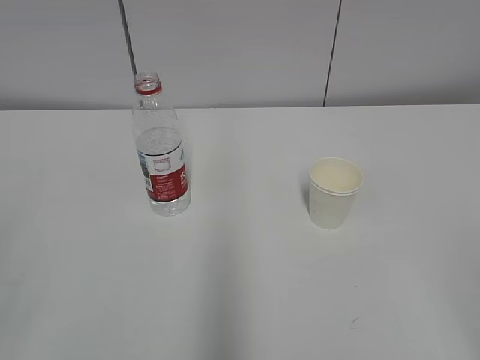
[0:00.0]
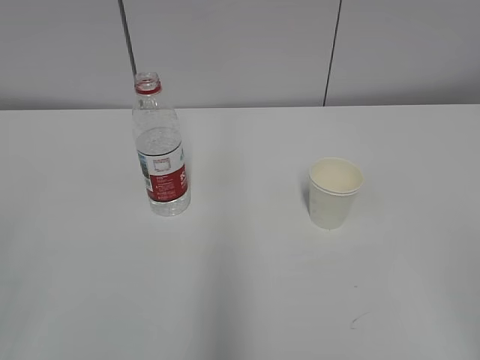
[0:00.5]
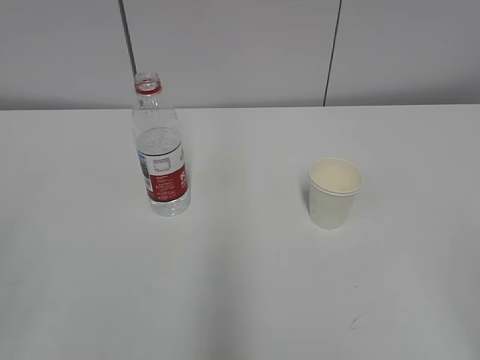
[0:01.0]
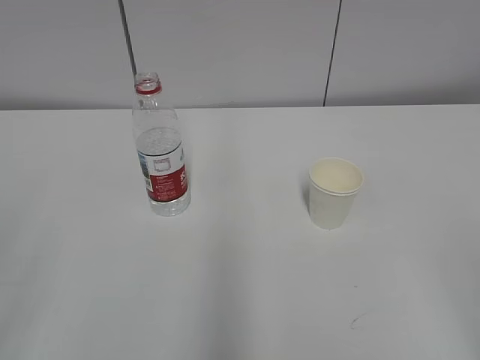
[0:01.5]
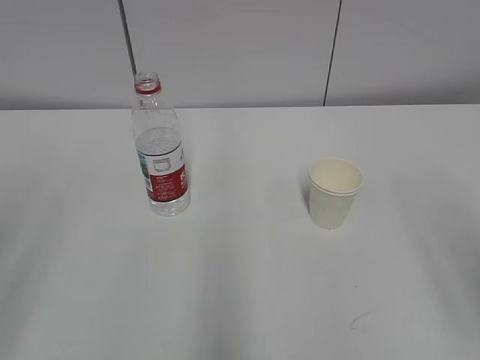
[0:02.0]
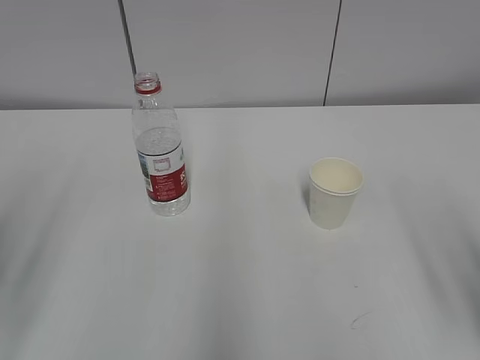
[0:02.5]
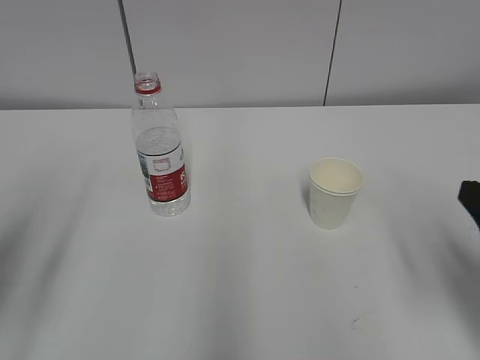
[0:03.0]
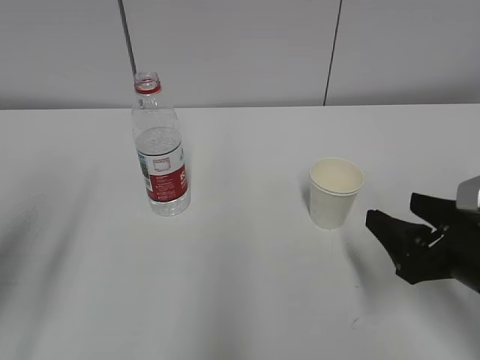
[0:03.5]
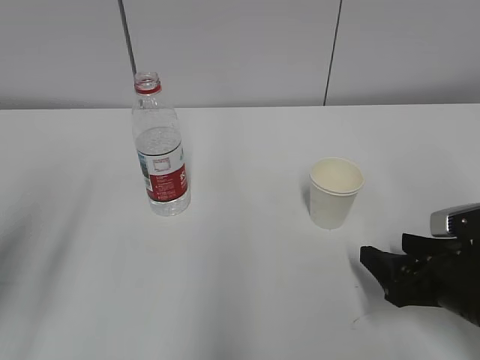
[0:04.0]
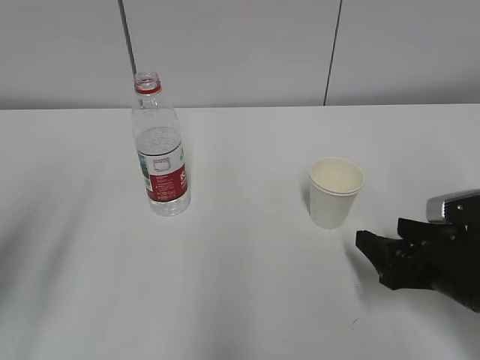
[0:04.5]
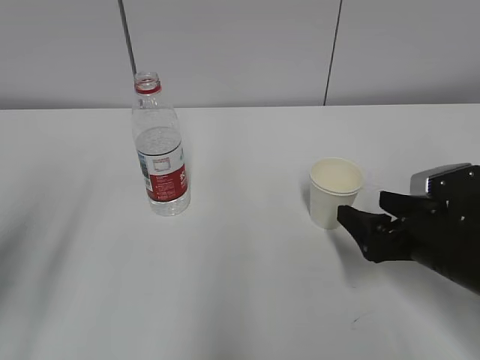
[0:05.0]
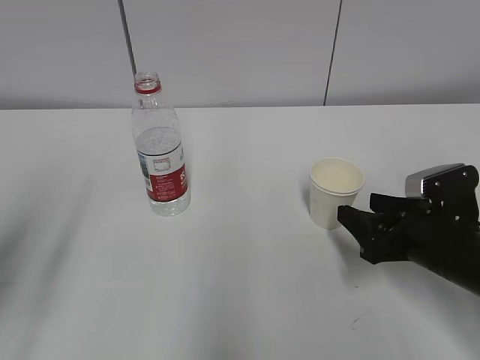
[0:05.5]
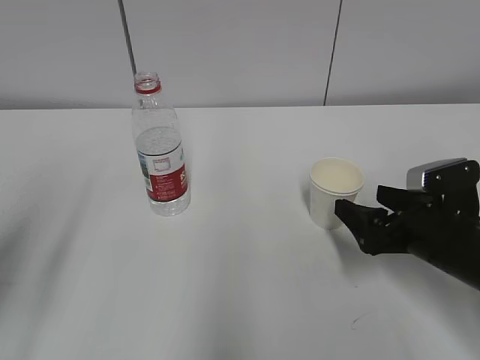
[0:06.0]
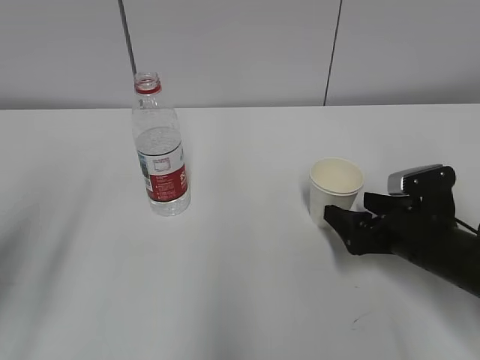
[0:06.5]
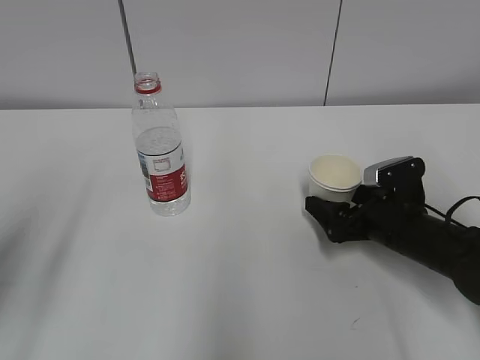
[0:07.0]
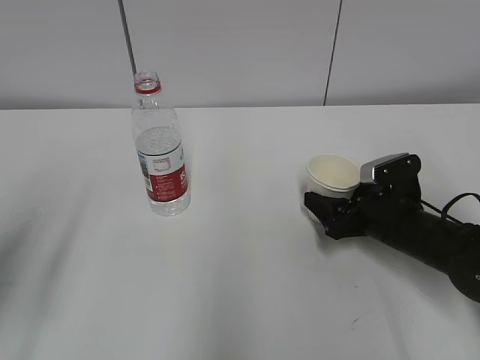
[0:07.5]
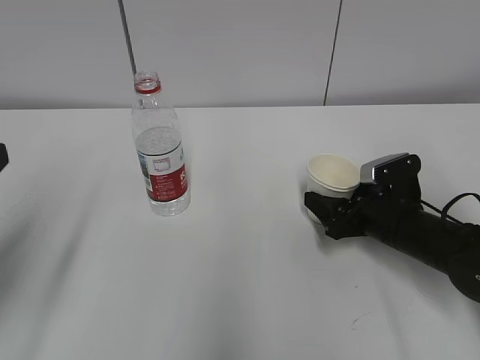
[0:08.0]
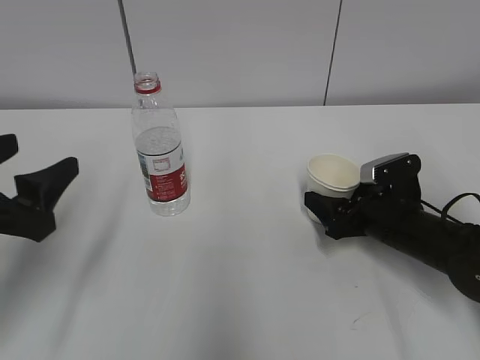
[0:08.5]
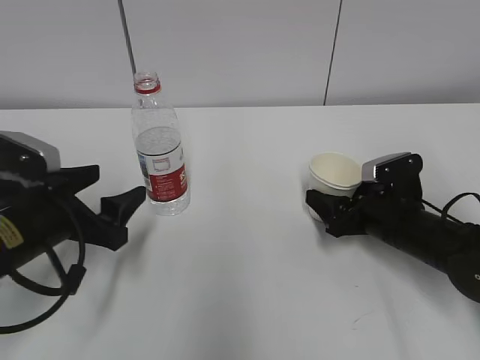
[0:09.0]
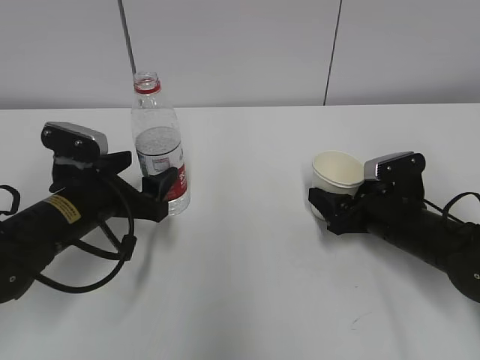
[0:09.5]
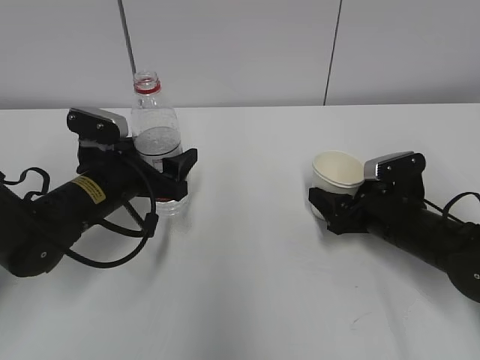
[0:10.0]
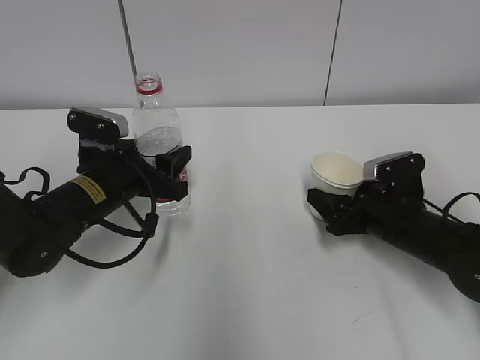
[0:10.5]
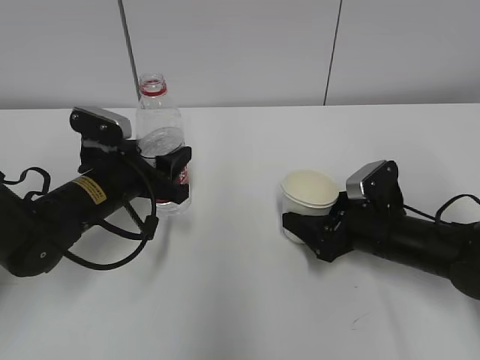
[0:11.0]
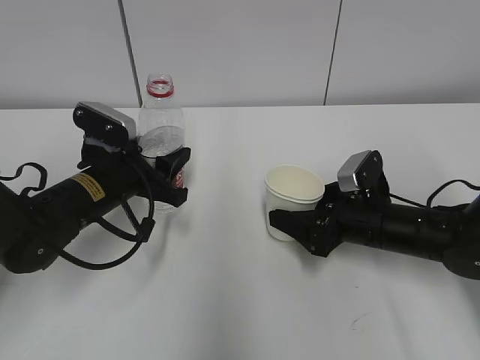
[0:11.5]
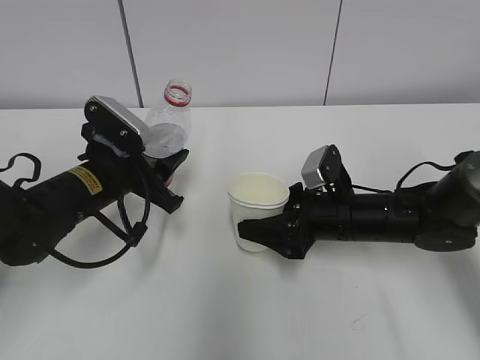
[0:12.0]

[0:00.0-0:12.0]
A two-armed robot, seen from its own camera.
Step, 0:00.0 to 0:09.0: Grab the paper cup with the right hand.
0:02.0 to 0:04.0: The right gripper goes about 25 cm downward and forward.
0:04.0 to 0:06.0: The right gripper goes about 5 cm forward, and opens its fingers.
0:06.0 to 0:08.0: The right gripper shifts roughly 5 cm forward, and closes up.
0:08.0 to 0:10.0: The left gripper goes roughly 25 cm forward, downward and to the right.
0:10.0 to 0:12.0: The right gripper travels to the left by roughly 5 cm, while the left gripper closes.

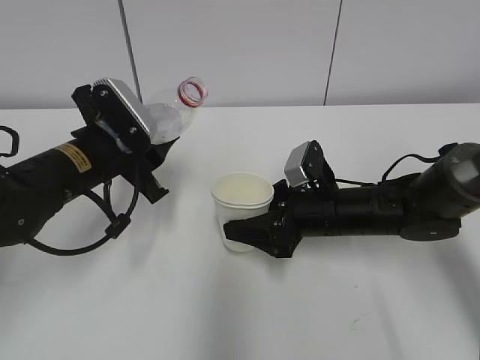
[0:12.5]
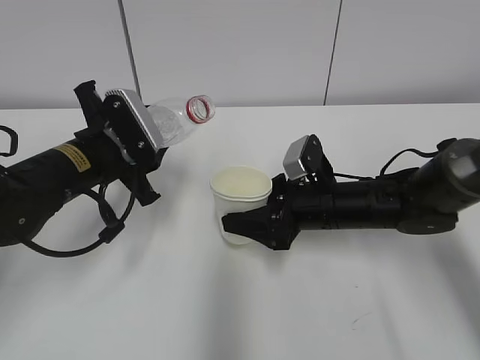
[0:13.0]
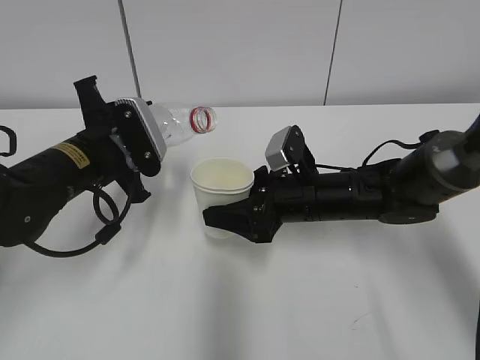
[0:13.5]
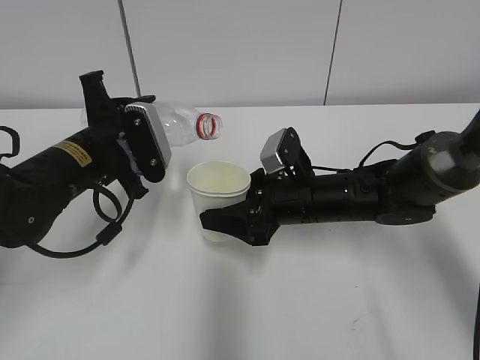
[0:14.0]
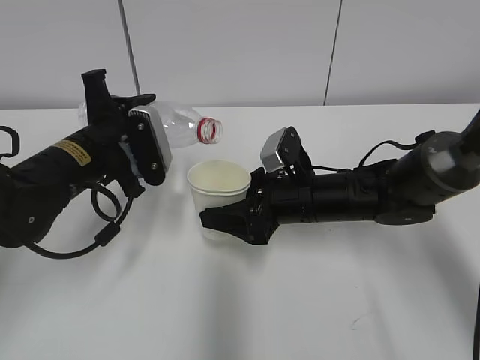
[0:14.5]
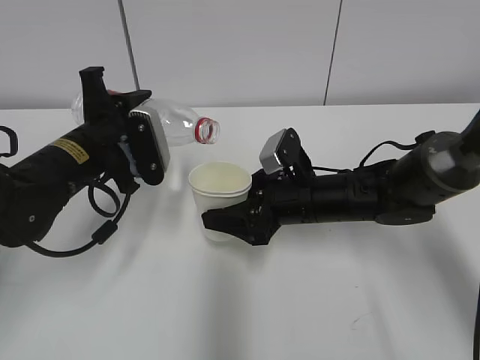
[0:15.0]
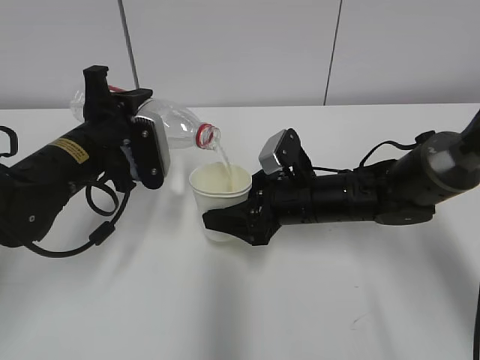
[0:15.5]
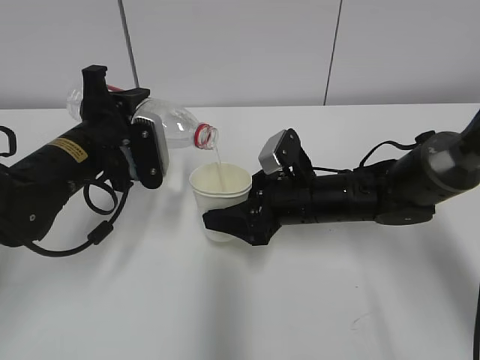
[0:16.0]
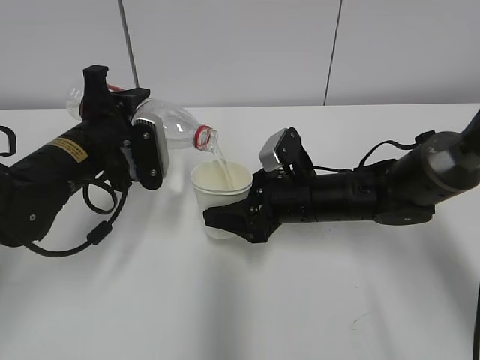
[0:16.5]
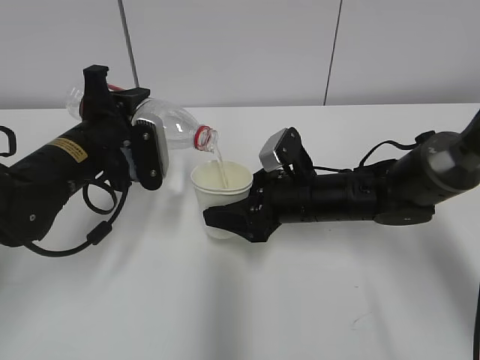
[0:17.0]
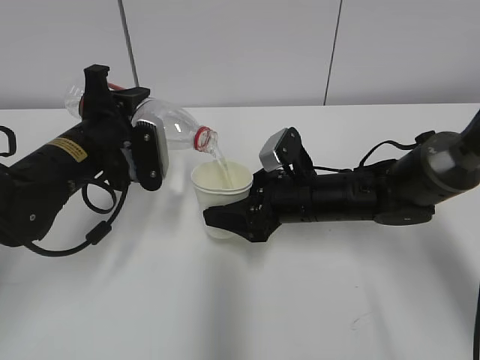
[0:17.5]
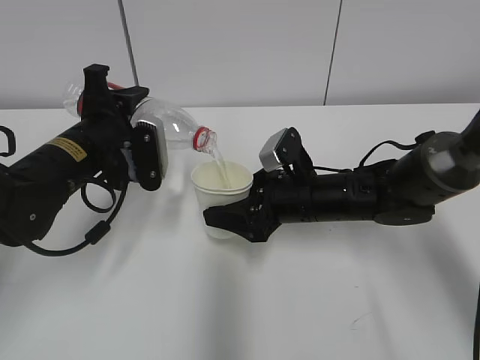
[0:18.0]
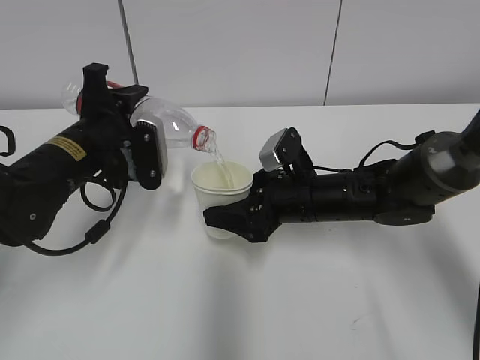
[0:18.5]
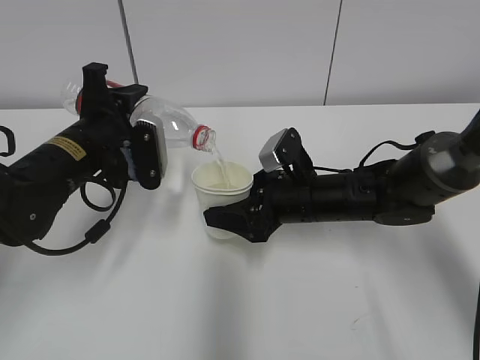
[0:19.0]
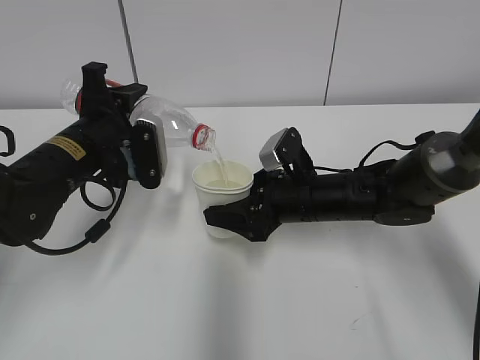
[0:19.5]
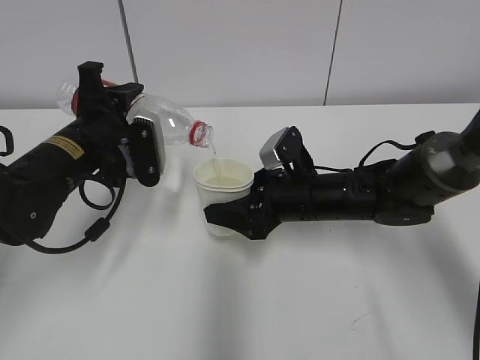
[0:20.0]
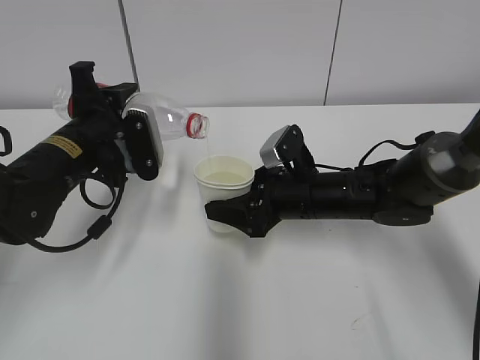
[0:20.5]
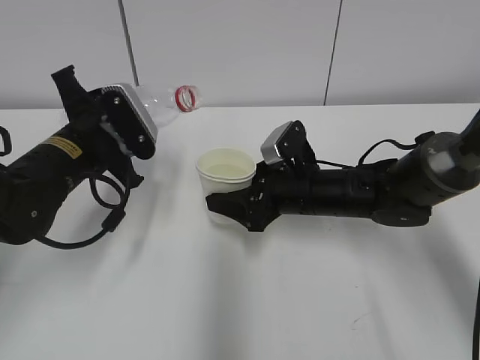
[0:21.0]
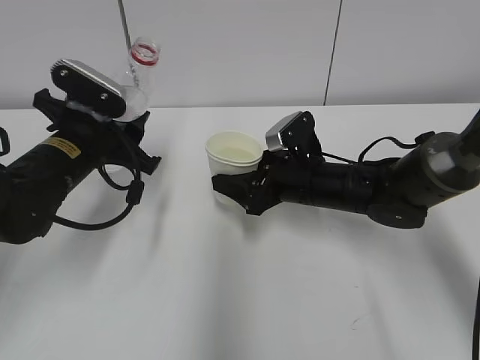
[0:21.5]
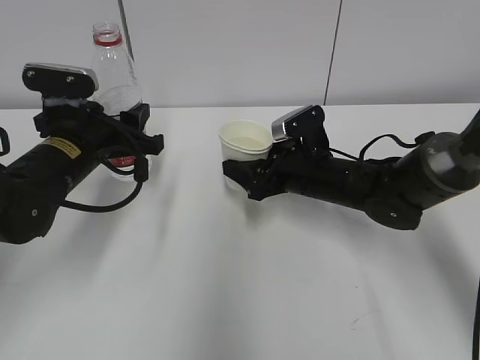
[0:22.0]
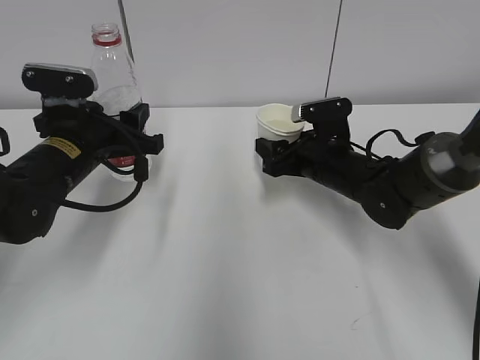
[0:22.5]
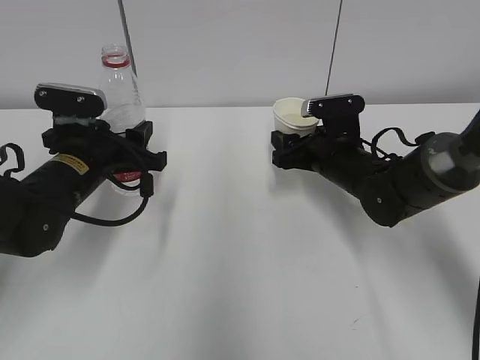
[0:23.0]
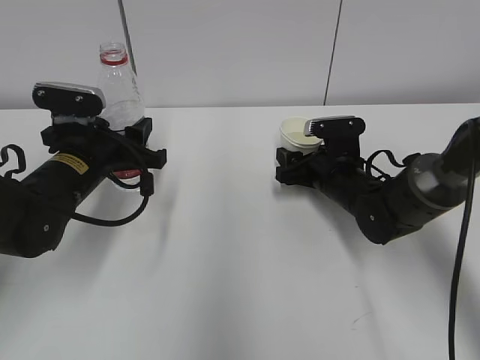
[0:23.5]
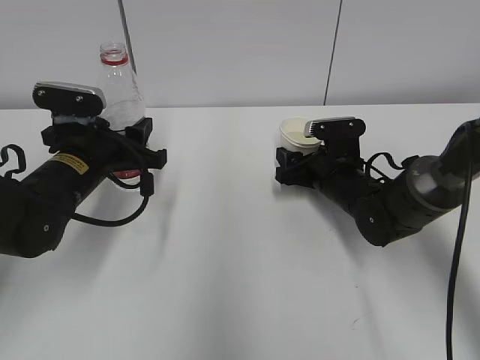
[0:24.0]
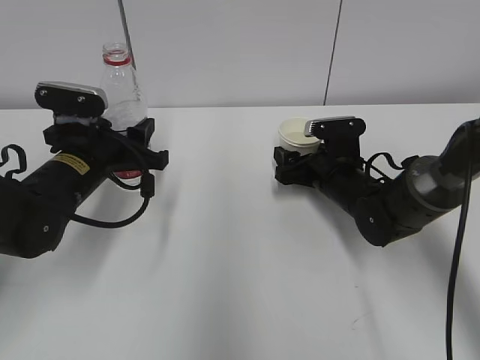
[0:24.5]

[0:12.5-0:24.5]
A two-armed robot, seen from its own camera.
Step, 0:13.0 to 0:17.0: Fill water with the right hand.
Step, 0:13.0 to 0:17.0: Pour water with the left hand.
Step, 0:18.5 to 0:20.5: Place the paper cup with the right hand.
0:14.5 to 0:16.5: The grippers make only small movements.
0:16.5 to 0:18.5: The two grippers keep their place.
0:18.5 to 0:20.5: There are only small adjustments of the grippers.
0:20.5 to 0:22.5: The right gripper changes place by about 5 cm.
0:22.5 to 0:24.5: The right gripper opens its fingers.

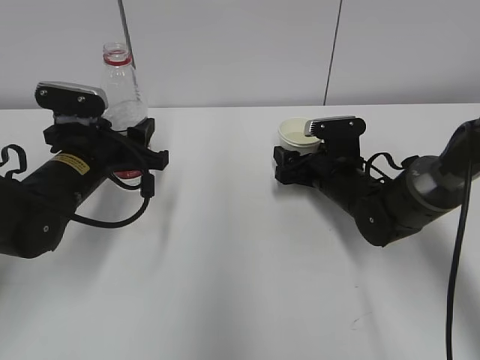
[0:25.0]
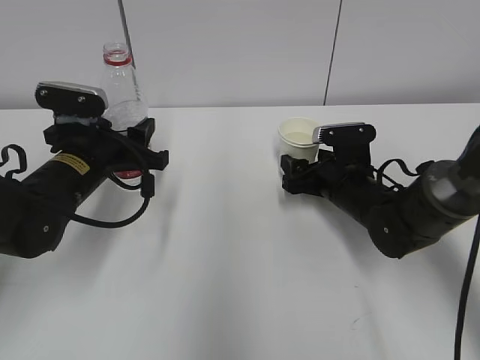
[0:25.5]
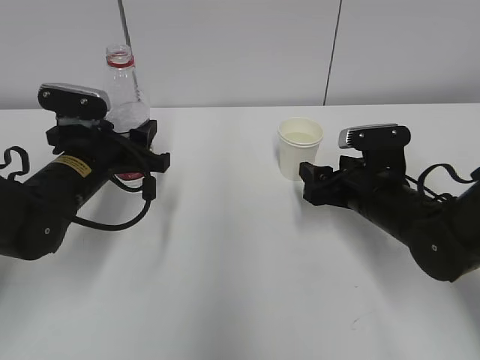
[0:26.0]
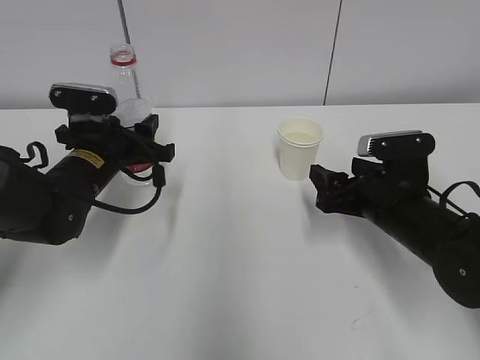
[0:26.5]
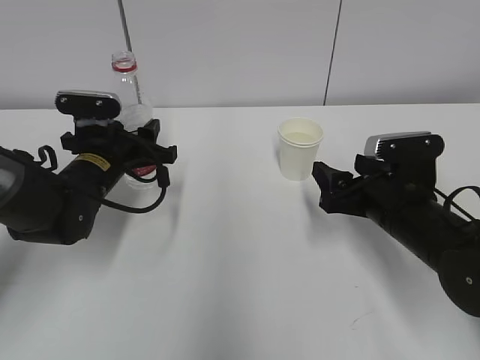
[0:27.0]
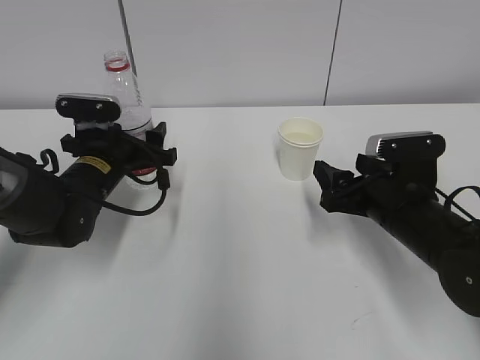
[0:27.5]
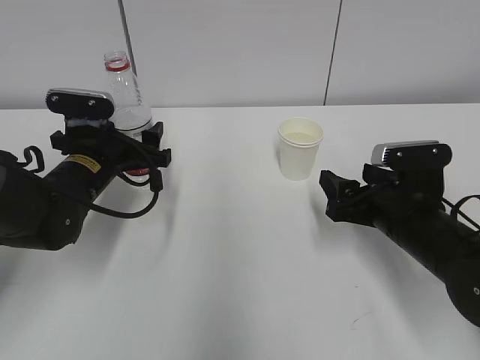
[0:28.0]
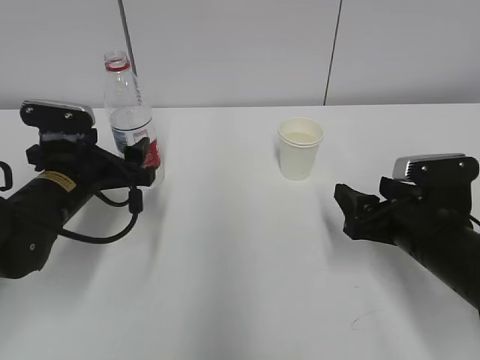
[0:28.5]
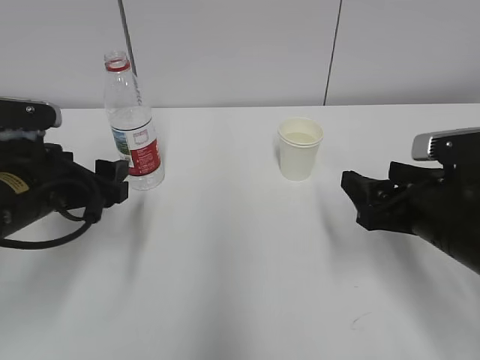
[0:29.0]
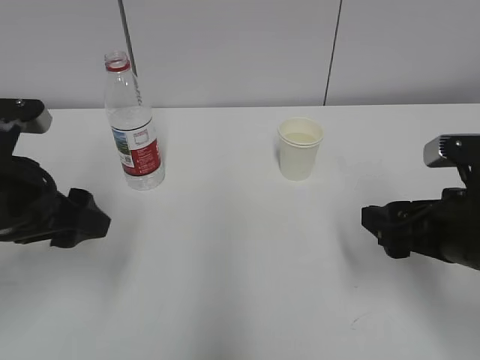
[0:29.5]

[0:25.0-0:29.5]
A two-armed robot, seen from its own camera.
0:25.0 to 0:27.0: The right gripper travels backward by approximately 10 cm.
0:27.0 to 0:29.5: The left gripper heads backward and upward, covering roughly 15 cm, and opens up; the right gripper moves backward and upward, approximately 10 cm.
